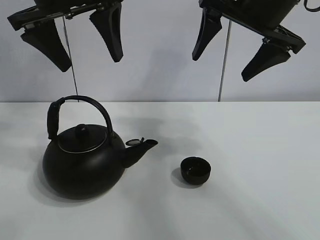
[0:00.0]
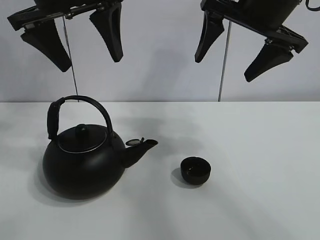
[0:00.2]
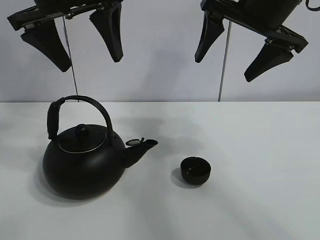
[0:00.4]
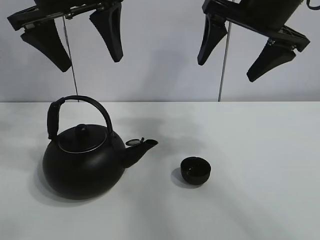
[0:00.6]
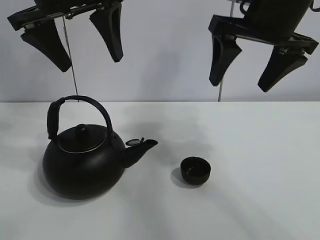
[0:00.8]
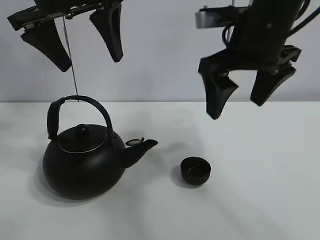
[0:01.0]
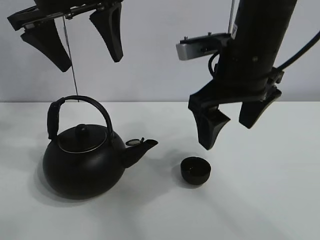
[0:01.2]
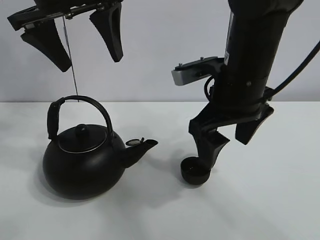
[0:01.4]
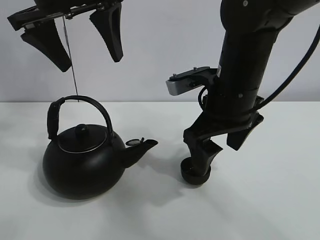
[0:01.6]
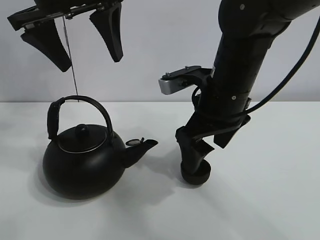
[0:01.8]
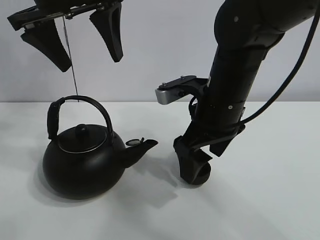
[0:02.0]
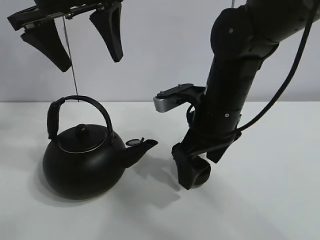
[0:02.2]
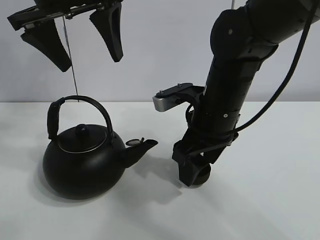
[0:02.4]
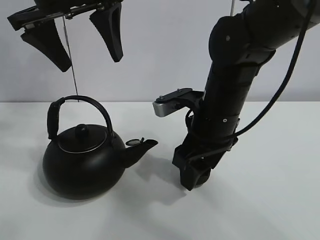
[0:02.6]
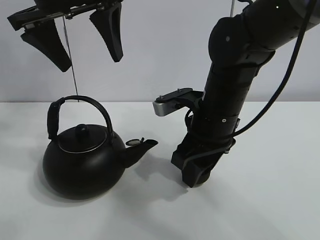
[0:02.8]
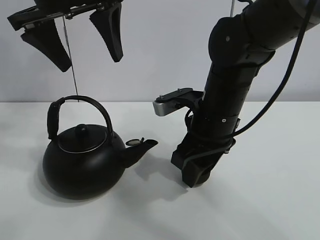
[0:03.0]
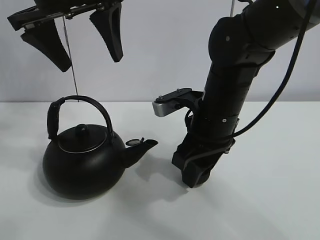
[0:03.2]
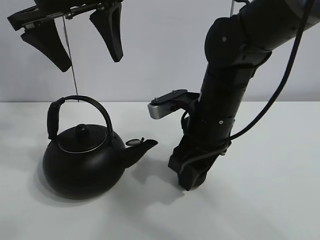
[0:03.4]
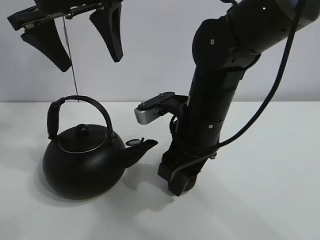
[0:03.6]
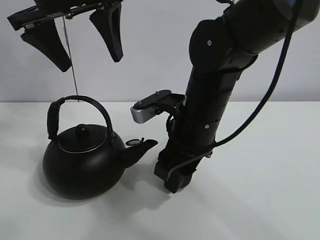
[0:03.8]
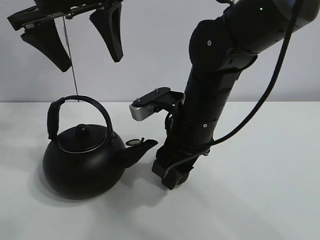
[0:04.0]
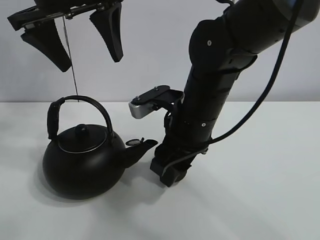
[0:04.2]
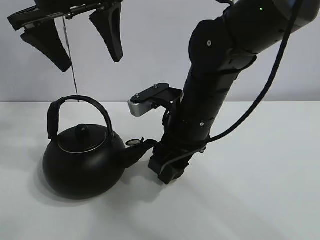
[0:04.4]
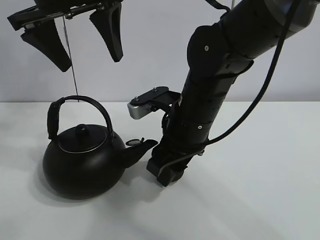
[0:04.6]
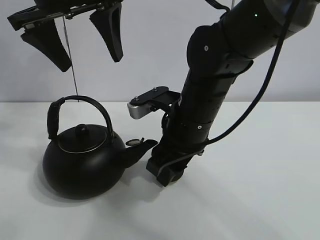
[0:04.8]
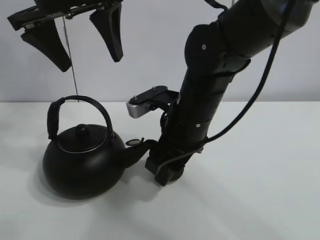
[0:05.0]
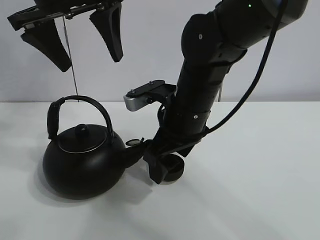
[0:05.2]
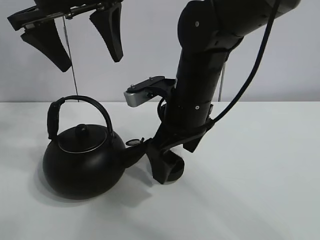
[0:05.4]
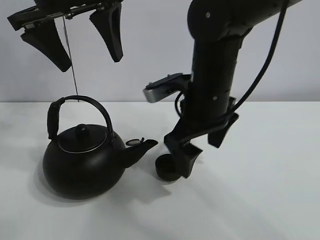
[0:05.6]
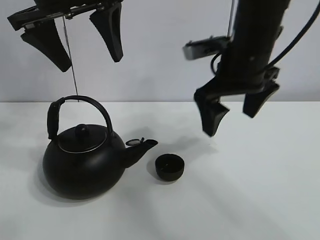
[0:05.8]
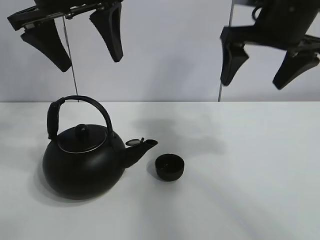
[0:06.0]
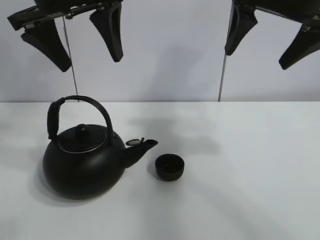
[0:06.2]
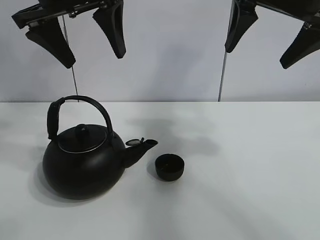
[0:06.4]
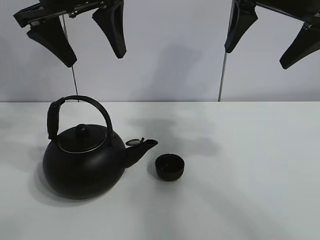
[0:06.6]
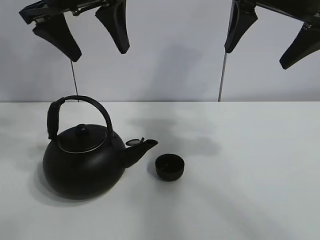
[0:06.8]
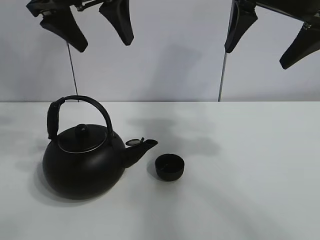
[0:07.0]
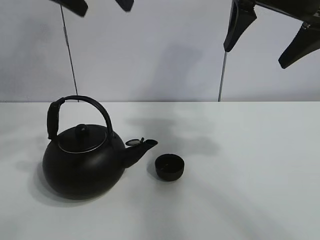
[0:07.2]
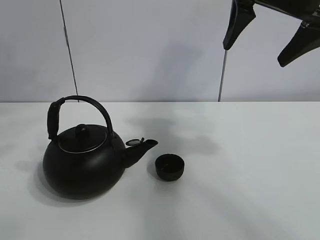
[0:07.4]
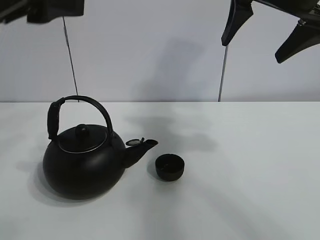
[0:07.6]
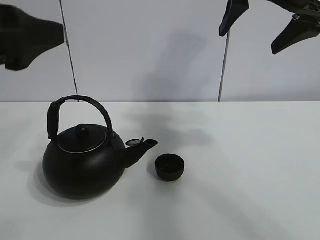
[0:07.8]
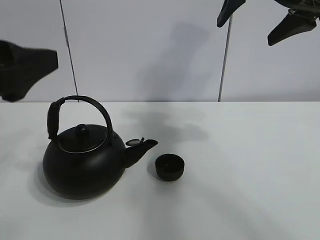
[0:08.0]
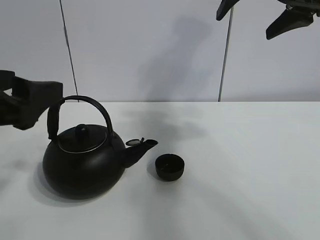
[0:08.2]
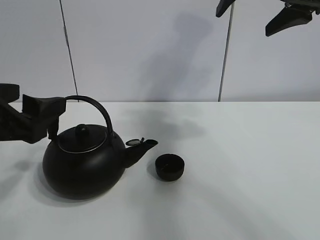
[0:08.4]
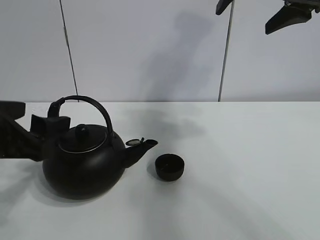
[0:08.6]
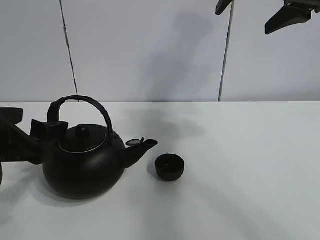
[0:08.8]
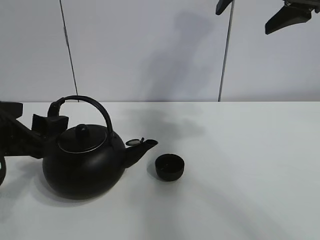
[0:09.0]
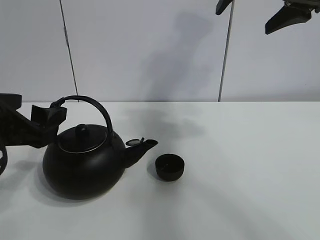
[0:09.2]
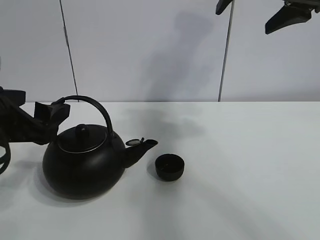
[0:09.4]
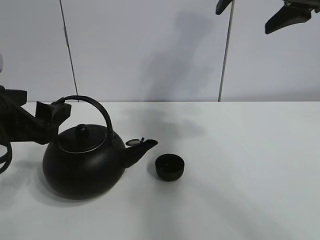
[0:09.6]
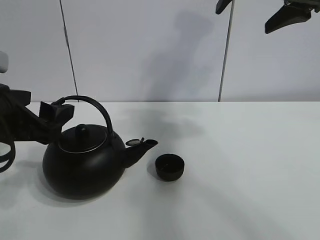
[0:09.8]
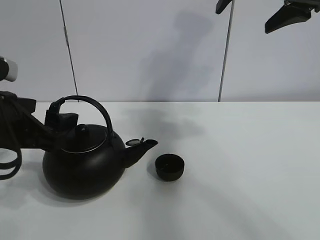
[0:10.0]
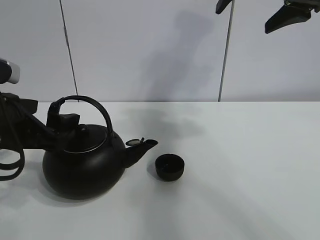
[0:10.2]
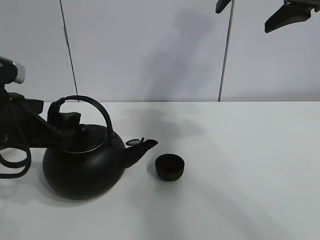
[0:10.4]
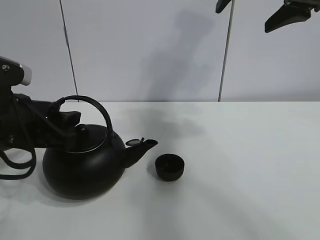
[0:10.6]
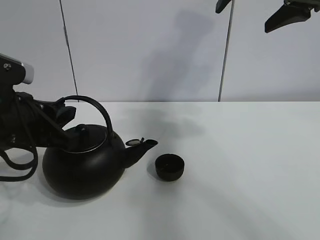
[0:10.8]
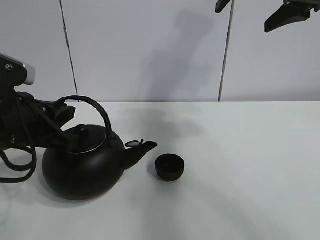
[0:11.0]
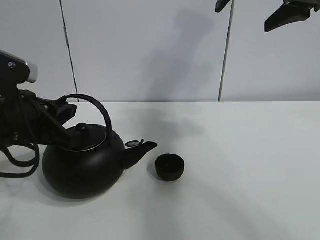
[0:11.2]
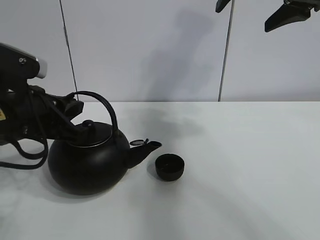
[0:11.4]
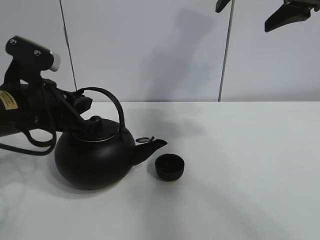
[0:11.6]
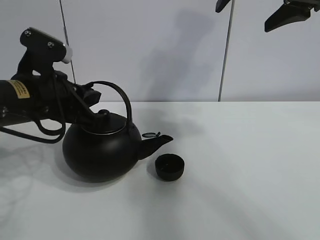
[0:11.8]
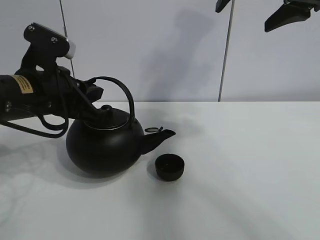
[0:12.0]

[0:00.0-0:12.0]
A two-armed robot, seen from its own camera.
Task of the whole recording: pour tea into the teacup.
Step, 0:00.0 to 0:02.8: Pick up the teacup with the right gripper.
Step, 0:03.0 to 0:05.0: Place the teacup in the center of view with the right gripper.
Step, 0:05.2 to 0:11.0: Pick up the teapot with the left gripper.
0:01.6 to 0:03.0: The right gripper closes up.
0:03.0 to 0:04.4: The grippers move only a little.
0:04.4 to 0:06.0: The right gripper travels upward and to the right by roughly 20 cm, and opens.
0:06.0 to 0:07.6: The left gripper moves backward and to the left, about 15 cm.
0:07.6 to 0:09.0: The left gripper moves downward, some 15 cm.
0:09.0 to 0:10.4: There are only small adjustments of the grippers.
0:10.4 to 0:12.0: The left gripper heads forward, covering roughly 5 cm, and closes up.

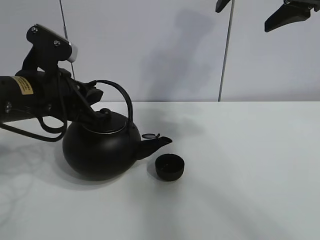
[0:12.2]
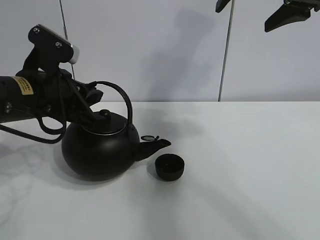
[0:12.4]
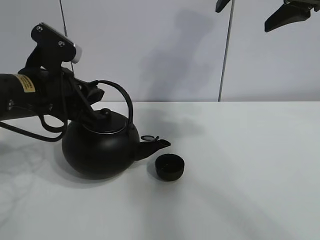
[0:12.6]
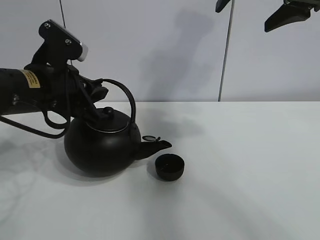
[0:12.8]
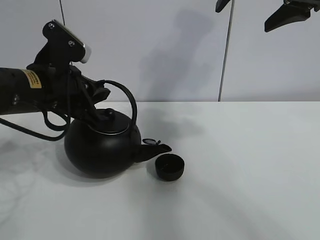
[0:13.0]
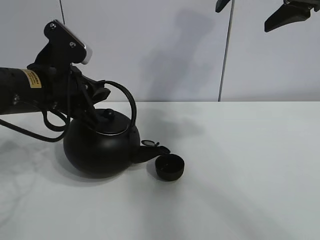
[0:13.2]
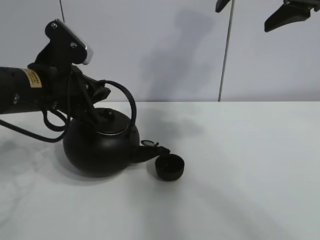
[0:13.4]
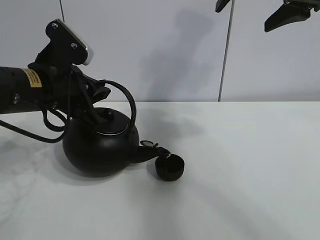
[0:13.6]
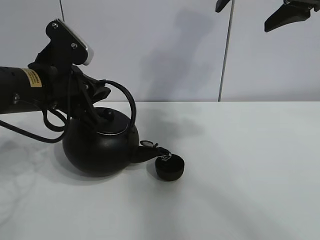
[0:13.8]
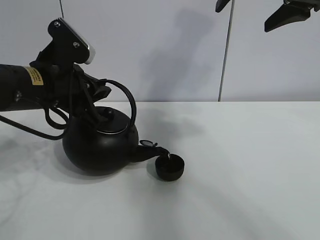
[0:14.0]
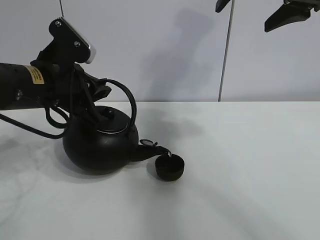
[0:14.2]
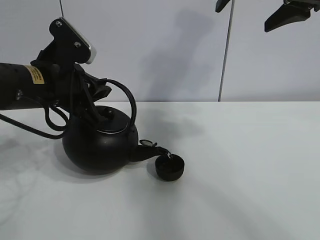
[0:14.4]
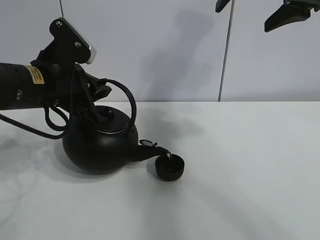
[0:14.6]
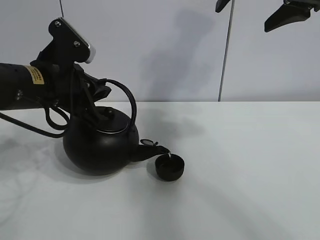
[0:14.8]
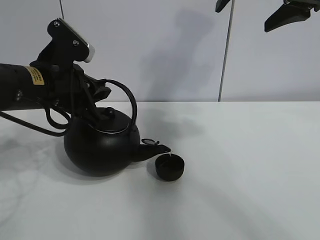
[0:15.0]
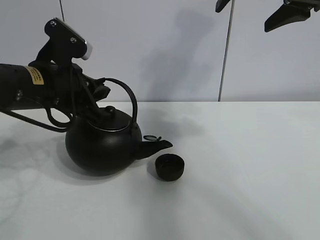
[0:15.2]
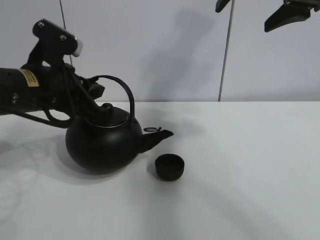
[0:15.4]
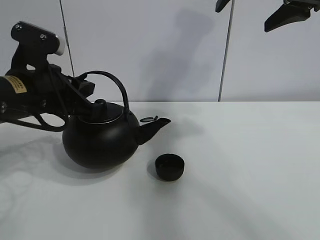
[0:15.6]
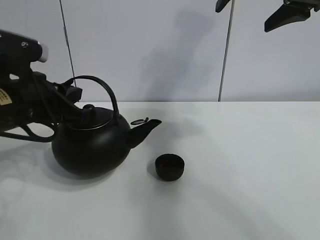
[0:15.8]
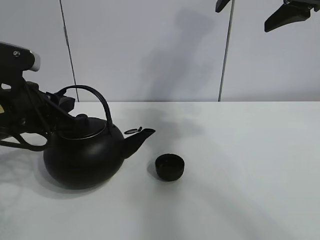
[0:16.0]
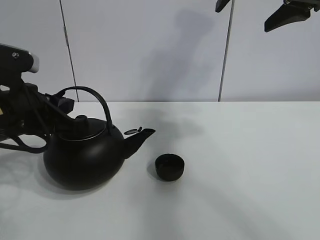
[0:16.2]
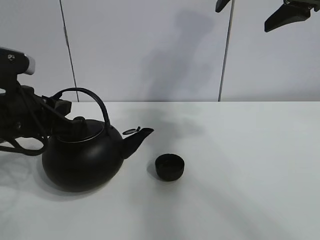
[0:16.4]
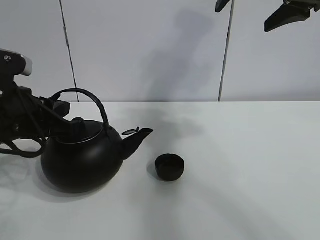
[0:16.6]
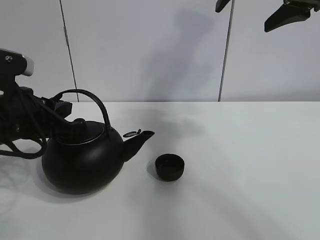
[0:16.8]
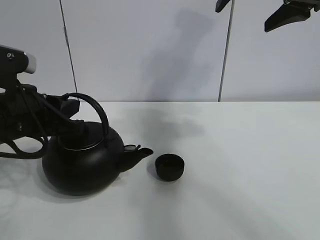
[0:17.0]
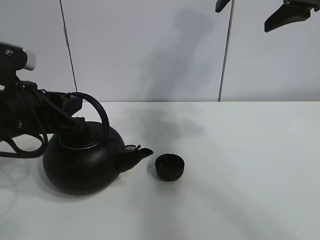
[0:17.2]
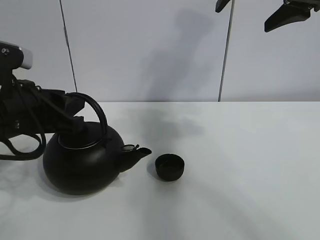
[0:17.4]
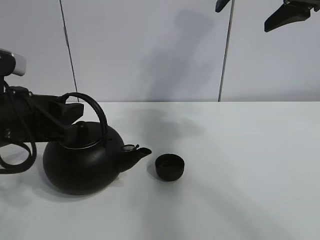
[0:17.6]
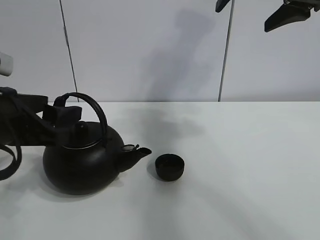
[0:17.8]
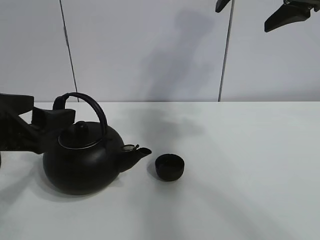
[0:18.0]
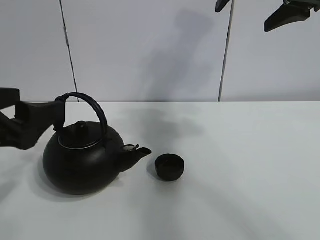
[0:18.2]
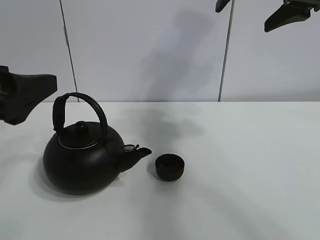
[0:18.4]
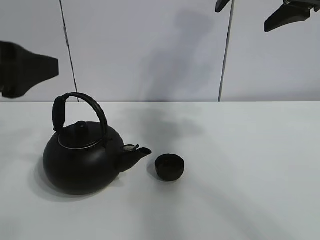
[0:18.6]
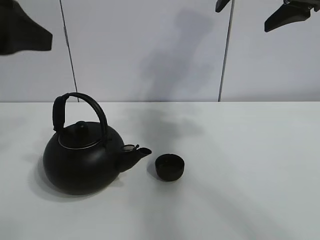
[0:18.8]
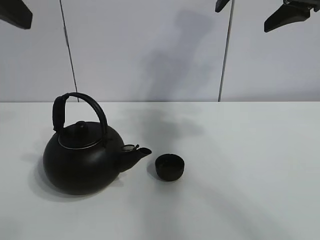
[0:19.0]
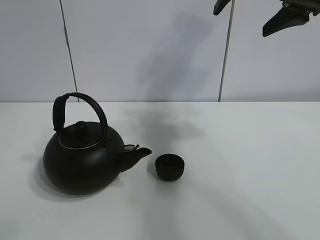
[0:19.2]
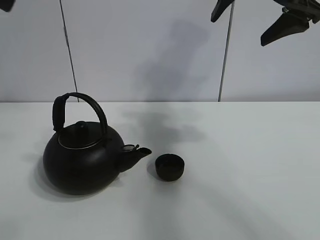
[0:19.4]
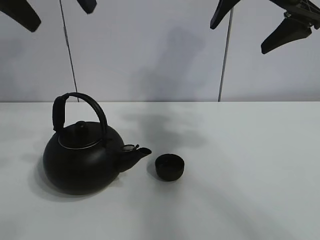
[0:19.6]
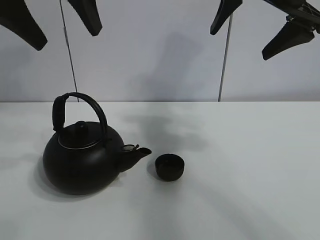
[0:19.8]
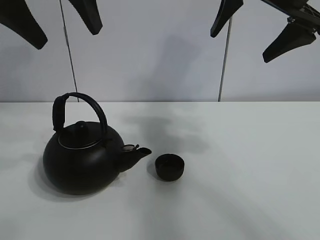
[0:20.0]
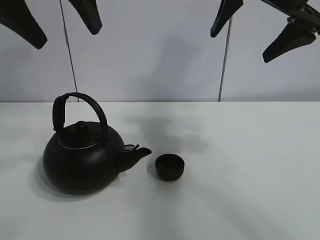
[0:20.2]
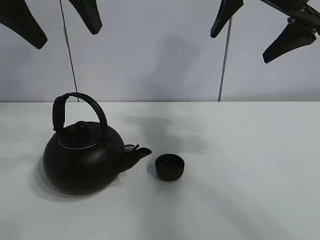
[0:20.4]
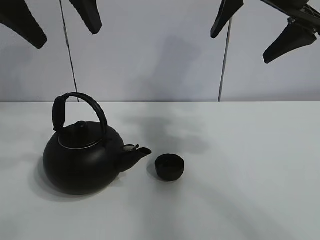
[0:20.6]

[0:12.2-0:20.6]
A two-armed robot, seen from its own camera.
Task of the whole recording: pour tea into the teacup.
Step, 0:12.2 to 0:15.0: Pour tea into the teacup with the left gripper.
0:12.2 to 0:13.6: The grippers move only a little.
0:13.6 to 0:15.0: The two grippers keep their place.
0:15.0 to 0:16.4: The left gripper ends up roughly 5 cm from where it was.
0:16.4 to 0:17.8: The left gripper opens its fingers.
0:17.8 to 0:19.2: The left gripper goes some 25 cm upward.
0:19.2 to 0:20.6: The left gripper is displaced forward and to the right by roughly 10 cm.
